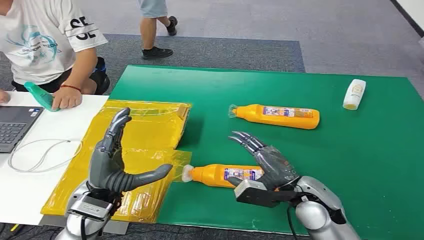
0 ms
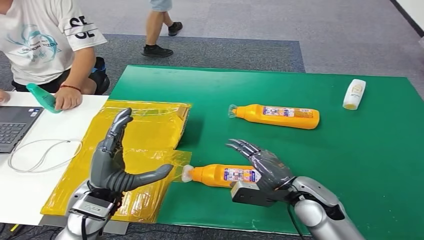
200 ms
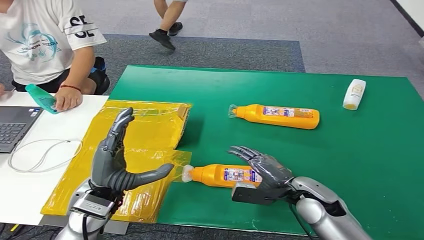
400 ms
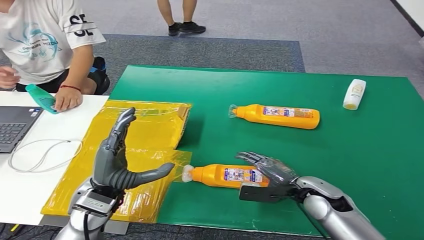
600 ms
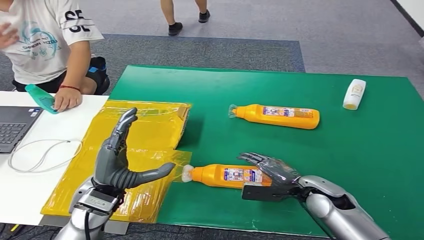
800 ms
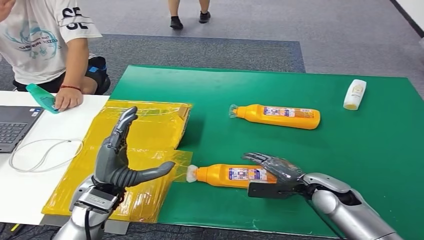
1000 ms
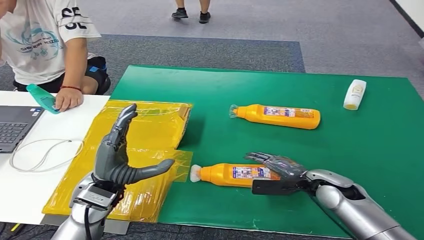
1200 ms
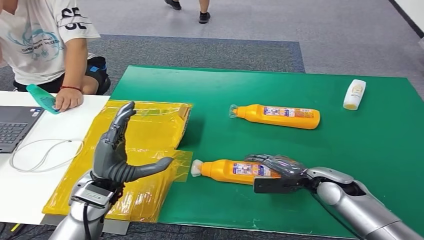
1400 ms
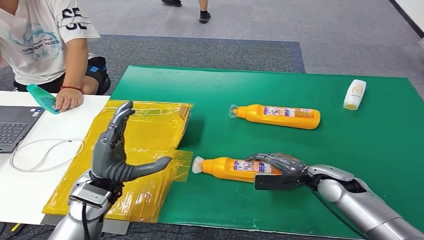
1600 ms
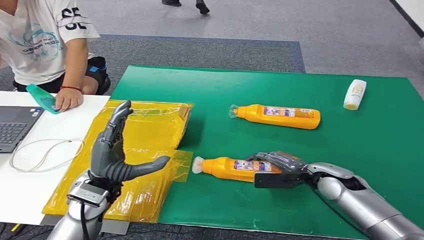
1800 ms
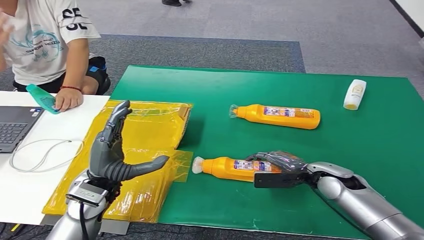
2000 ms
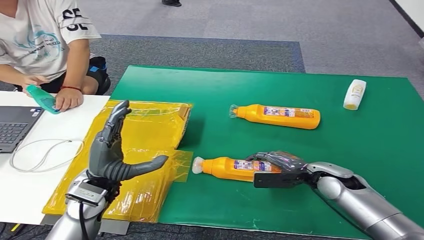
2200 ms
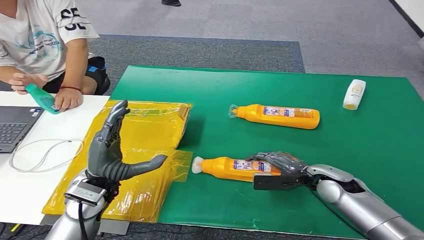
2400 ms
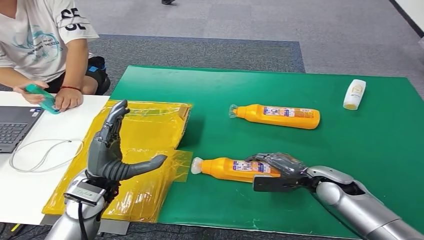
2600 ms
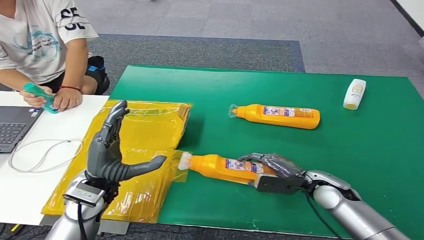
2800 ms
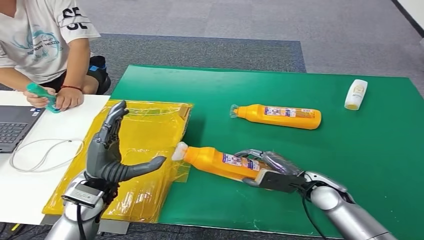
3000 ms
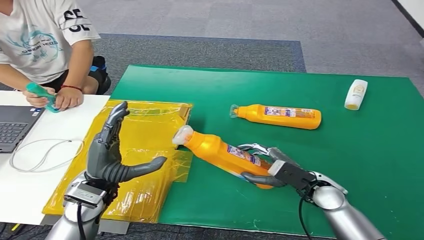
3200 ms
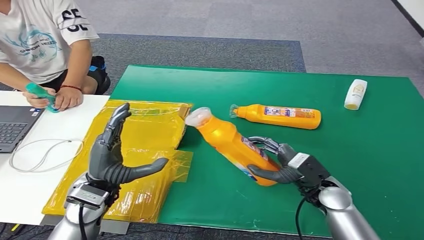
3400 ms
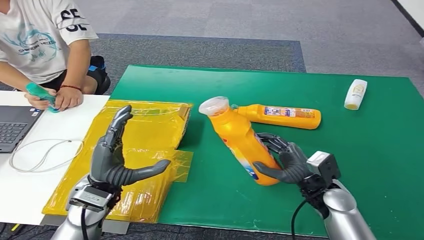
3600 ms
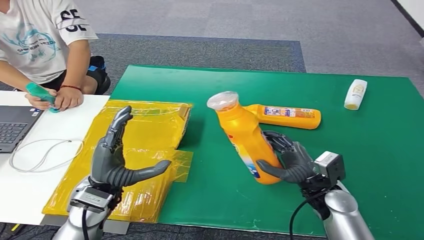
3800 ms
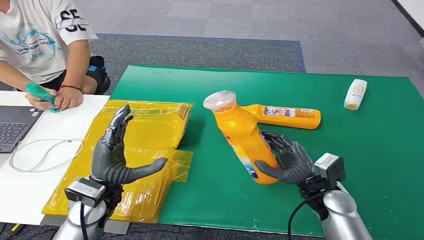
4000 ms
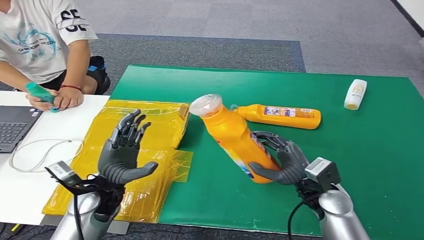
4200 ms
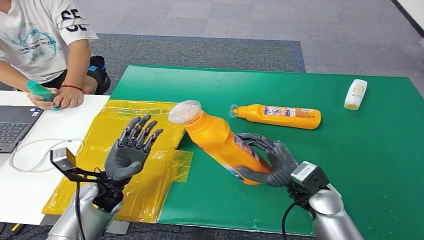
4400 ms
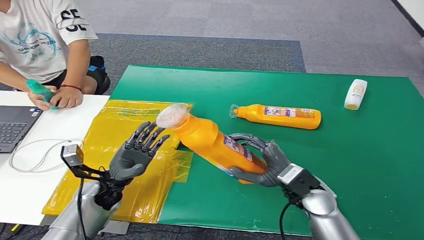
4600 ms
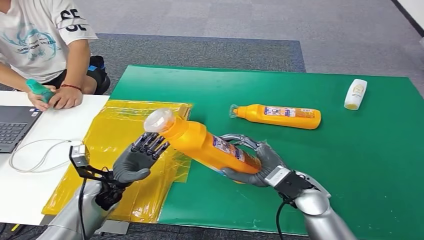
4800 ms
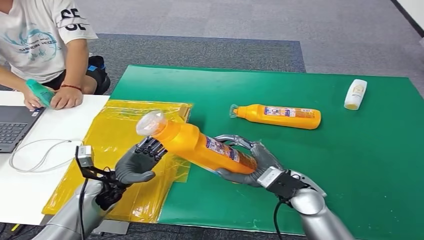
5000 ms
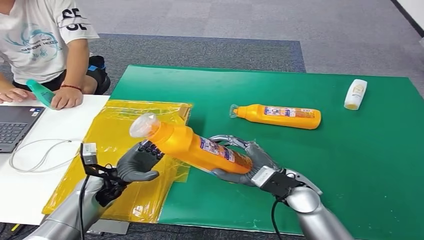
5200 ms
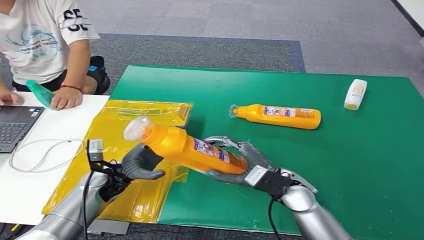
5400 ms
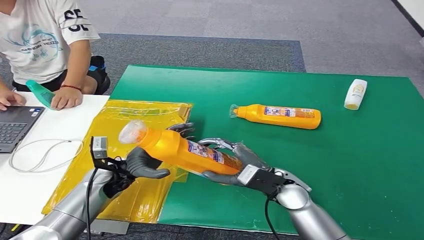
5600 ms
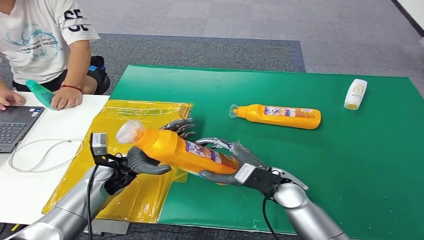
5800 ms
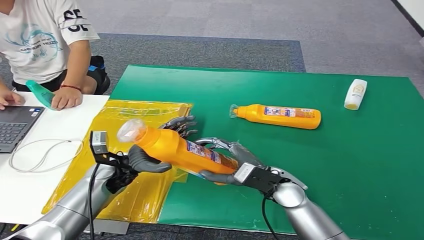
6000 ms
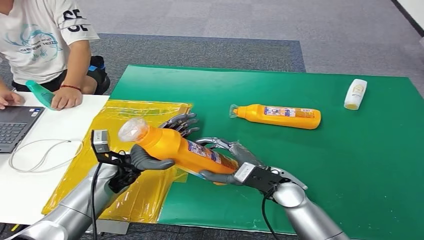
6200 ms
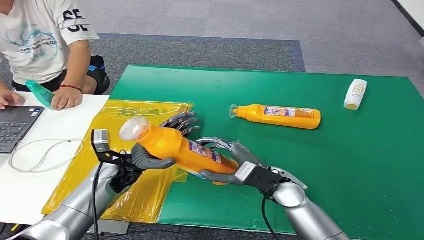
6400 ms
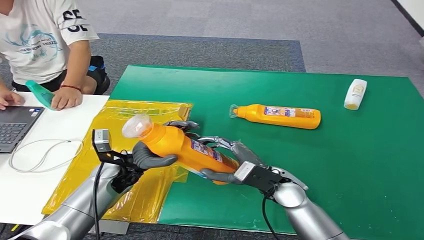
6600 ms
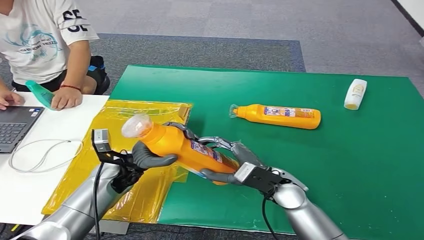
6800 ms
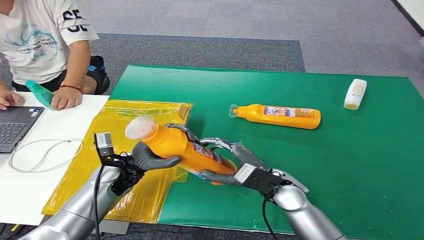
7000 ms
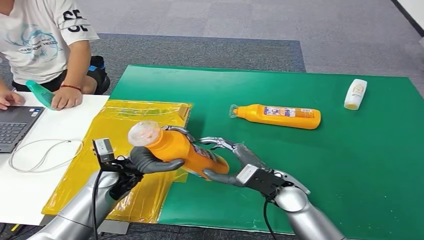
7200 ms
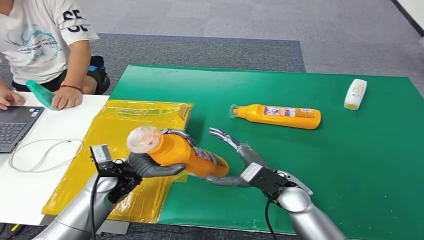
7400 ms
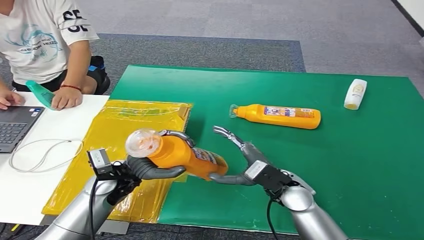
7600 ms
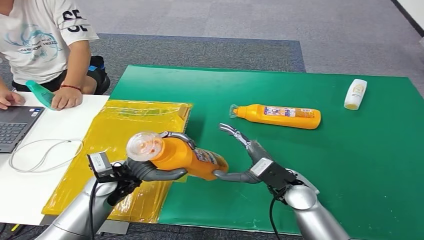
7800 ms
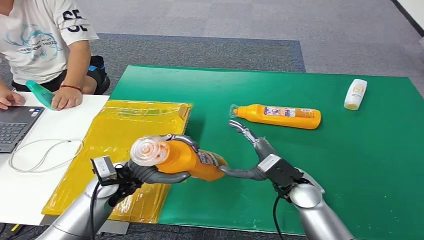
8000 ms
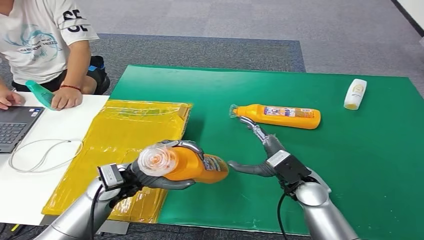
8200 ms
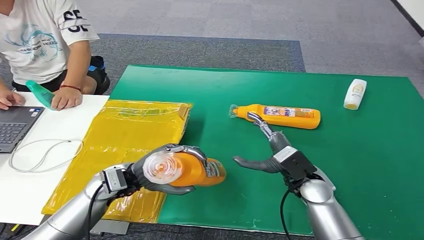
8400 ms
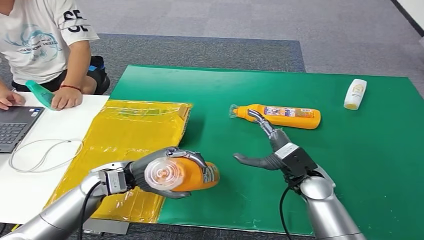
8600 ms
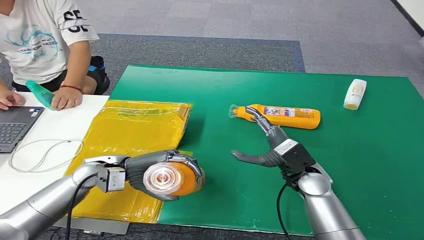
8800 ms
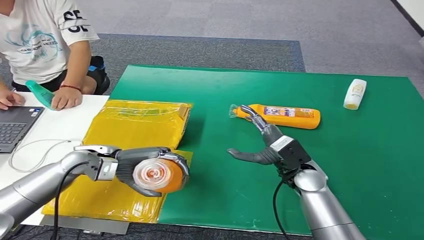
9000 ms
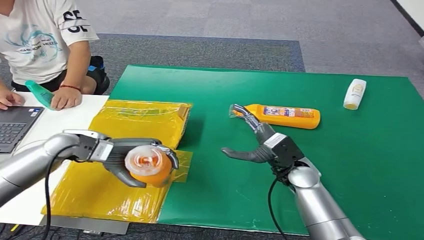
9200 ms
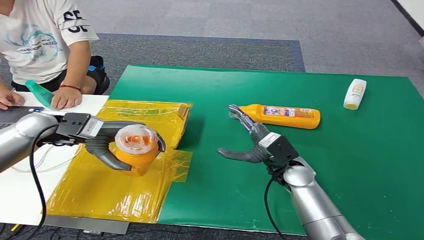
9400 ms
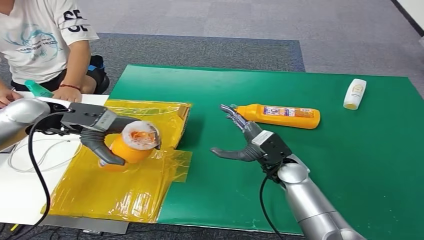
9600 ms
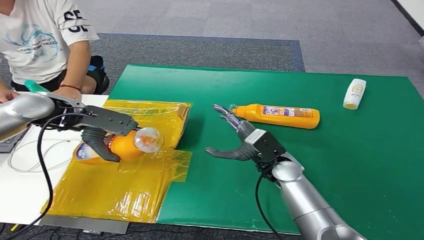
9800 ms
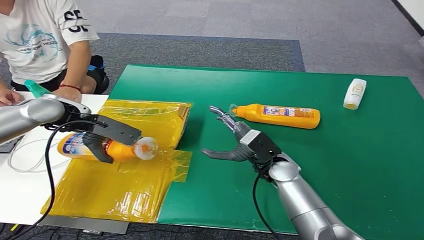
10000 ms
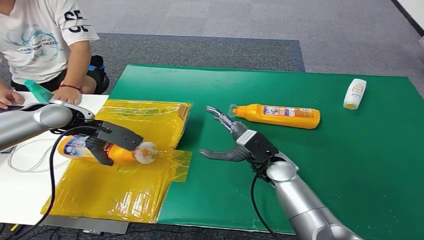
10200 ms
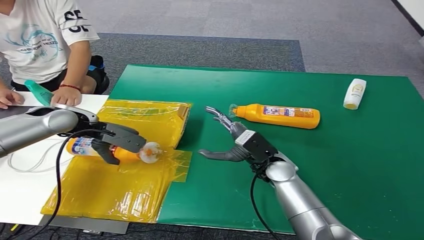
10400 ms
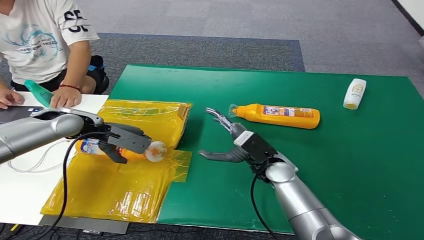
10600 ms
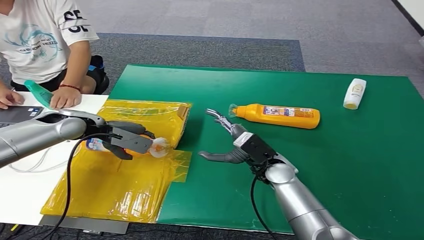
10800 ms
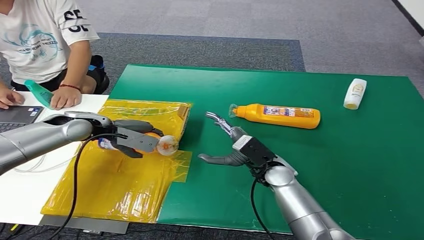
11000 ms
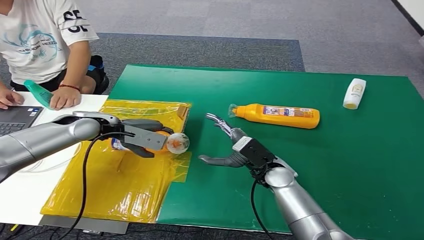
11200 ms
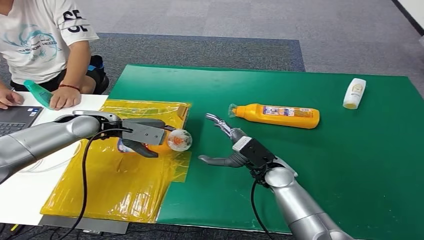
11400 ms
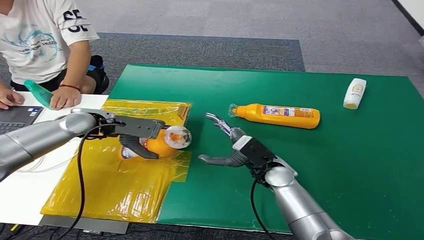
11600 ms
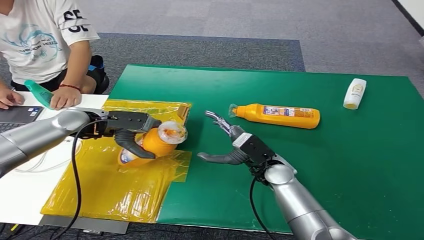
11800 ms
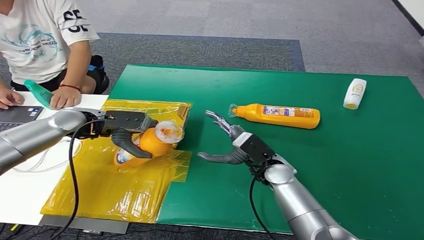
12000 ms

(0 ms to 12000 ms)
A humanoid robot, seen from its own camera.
Step, 0 ms - 4000 ms: Pick up the bottle from the table.
6000 ms - 7600 ms: The hands stay close to where they were, moving slightly.
7600 ms - 9000 ms: The left hand moves to the left, roughly 5 cm; the right hand shifts by roughly 5 cm.

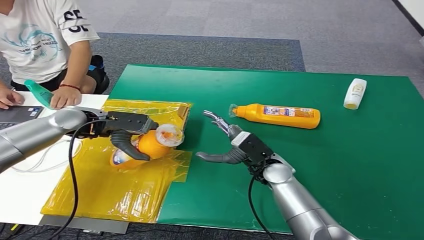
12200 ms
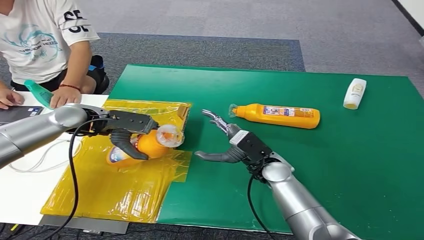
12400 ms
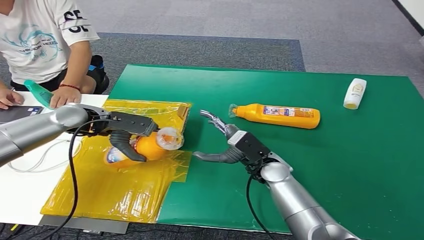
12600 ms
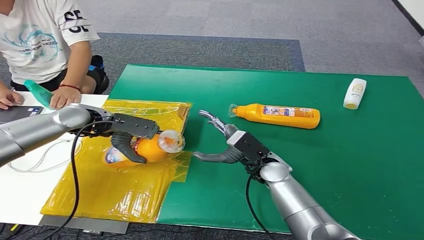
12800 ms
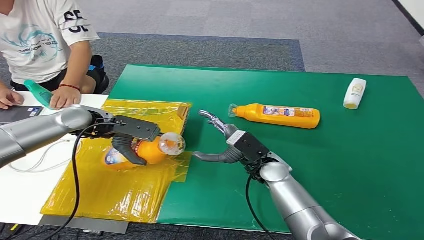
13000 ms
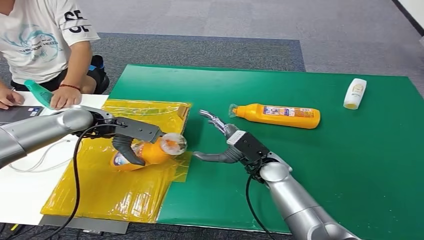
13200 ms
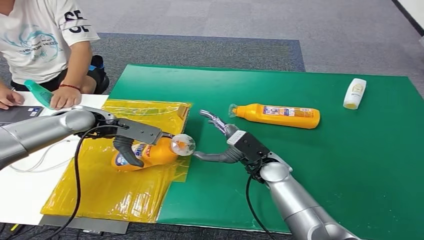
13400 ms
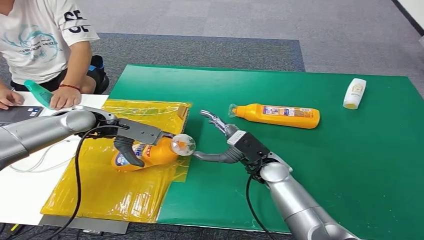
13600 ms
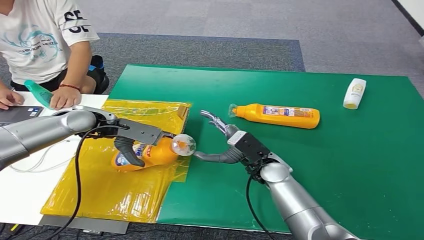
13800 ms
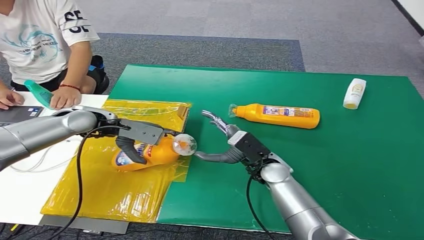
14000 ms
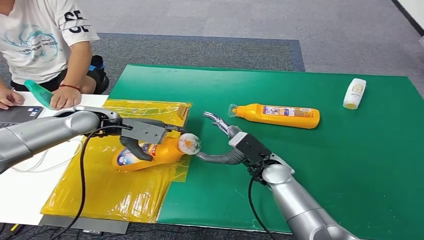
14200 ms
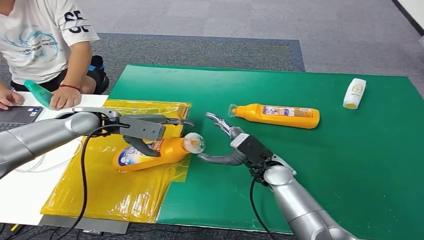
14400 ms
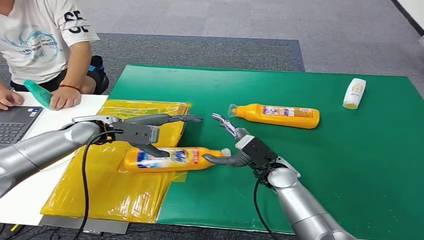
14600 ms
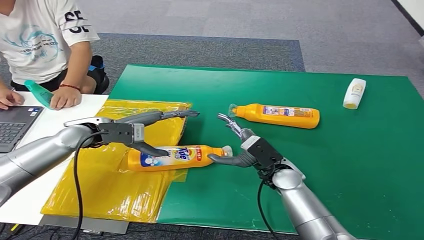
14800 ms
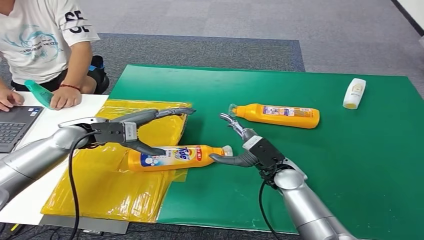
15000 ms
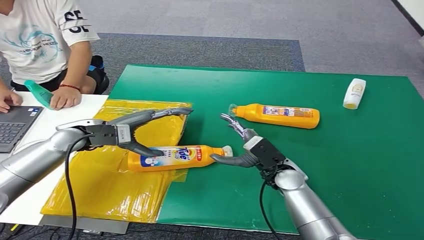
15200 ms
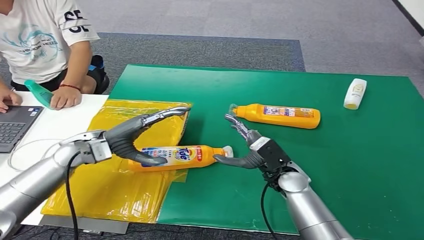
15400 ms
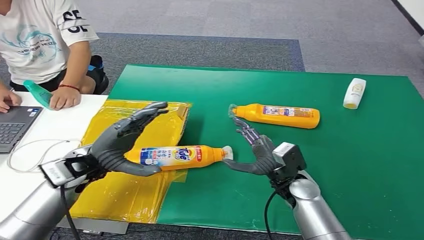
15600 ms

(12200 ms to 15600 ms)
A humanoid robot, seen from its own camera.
Step, 12200 ms - 15600 ms: Turn the bottle to the front side.
12200 ms - 13800 ms: The hands move only a little.
